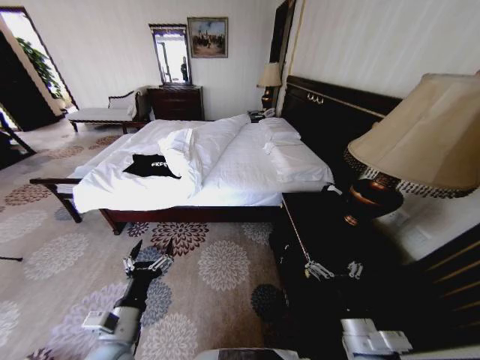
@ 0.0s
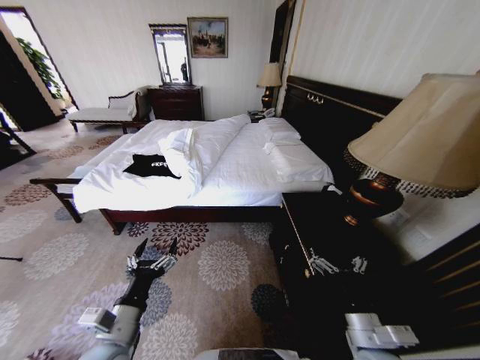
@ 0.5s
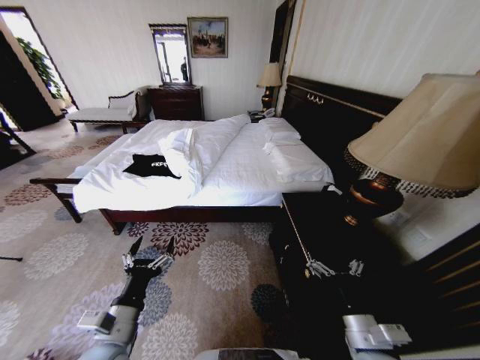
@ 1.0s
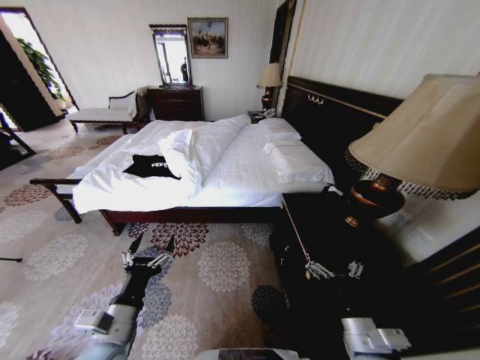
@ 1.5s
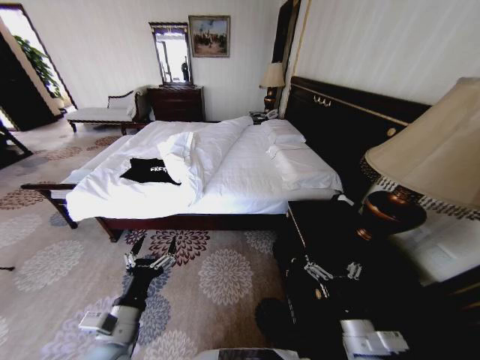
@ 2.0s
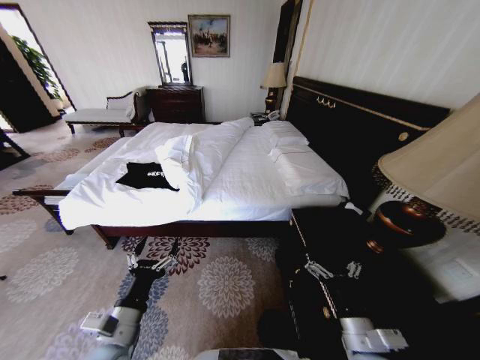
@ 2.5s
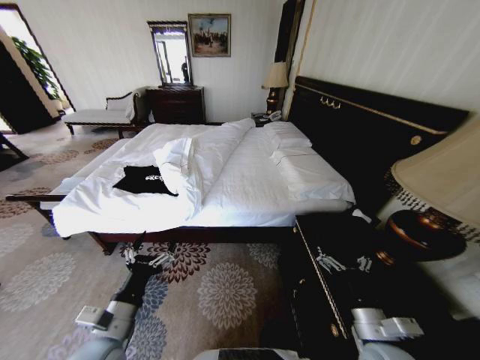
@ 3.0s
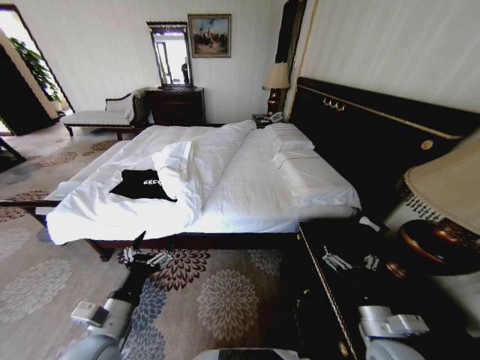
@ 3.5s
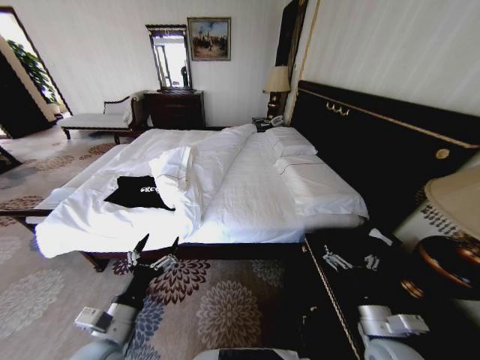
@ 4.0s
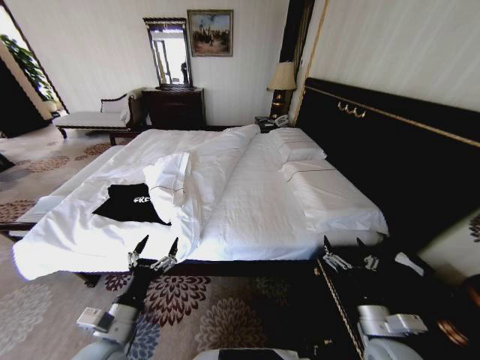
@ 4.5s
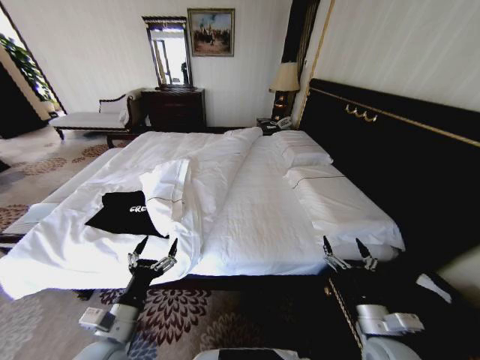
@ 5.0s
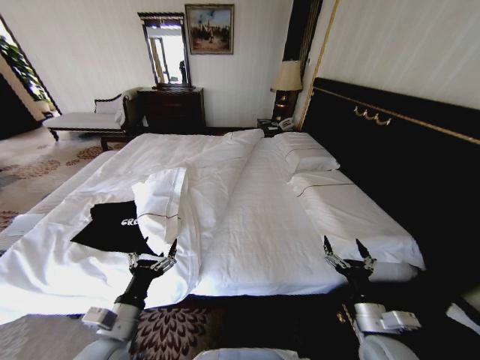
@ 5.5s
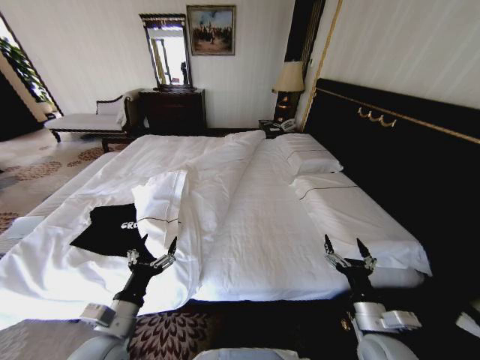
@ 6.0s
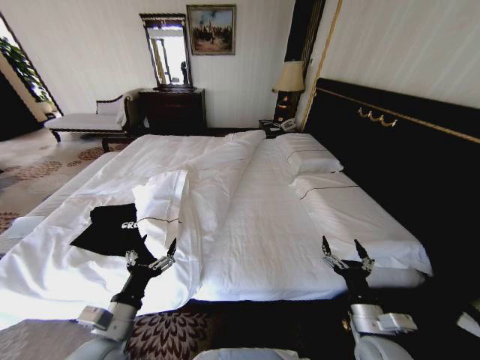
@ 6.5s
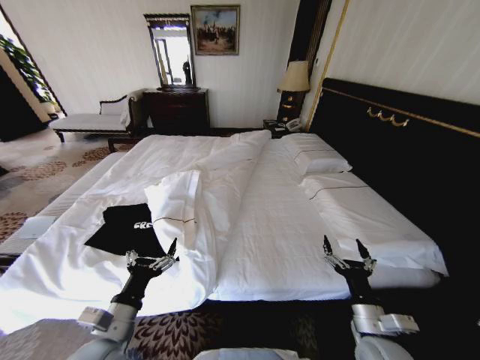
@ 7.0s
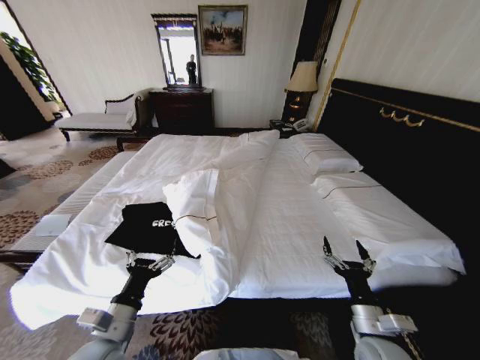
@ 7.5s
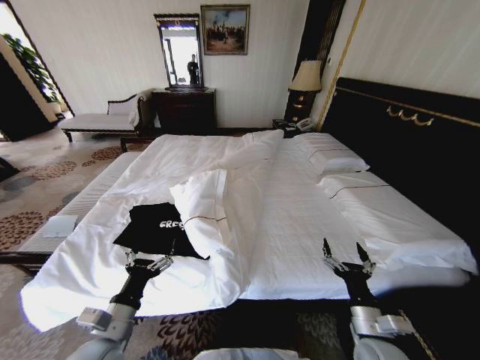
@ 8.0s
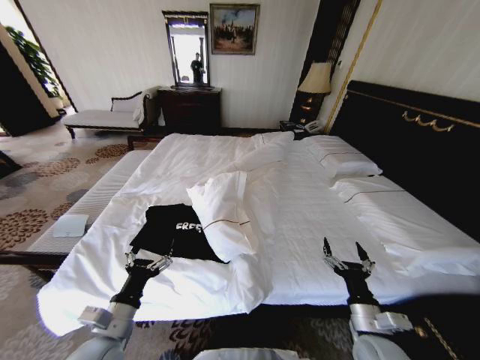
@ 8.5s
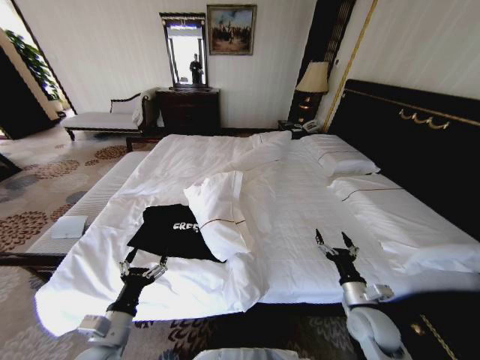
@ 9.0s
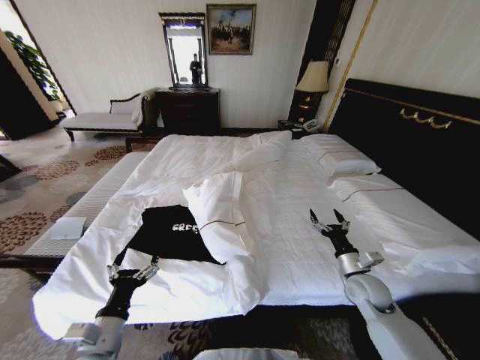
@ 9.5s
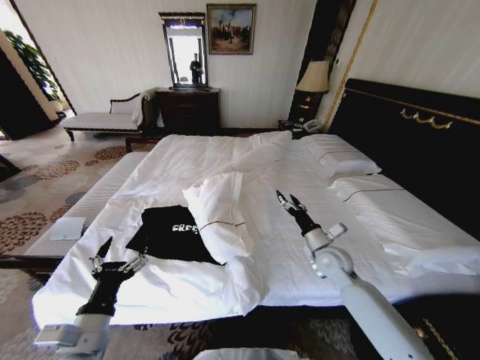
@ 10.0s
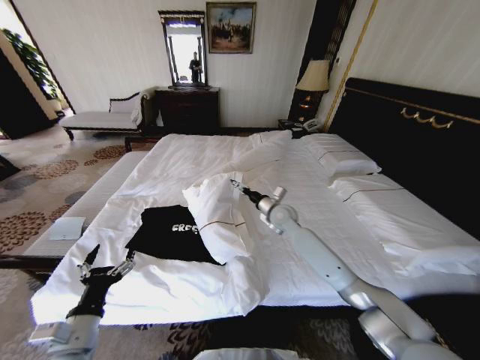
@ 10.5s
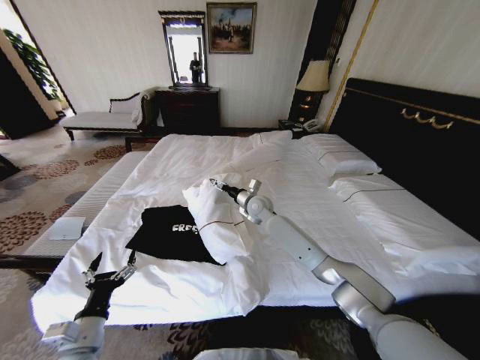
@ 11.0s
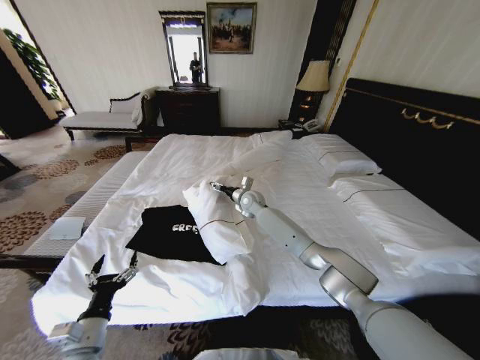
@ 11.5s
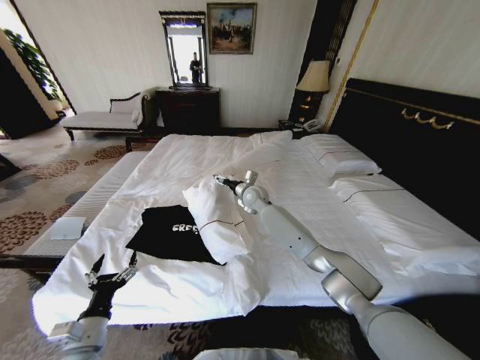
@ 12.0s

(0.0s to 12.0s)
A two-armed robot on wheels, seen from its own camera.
Task of the whole recording: Fold the clothes on the bed.
2.0s - 4.0s: The right gripper travels to the right by approximately 5 cm.
8.0s - 10.0s: The right gripper moves forward, some 20 cm.
10.0s - 12.0s: The right gripper moves forward and to the left, approximately 30 cm; the left gripper moves downward, some 5 cm.

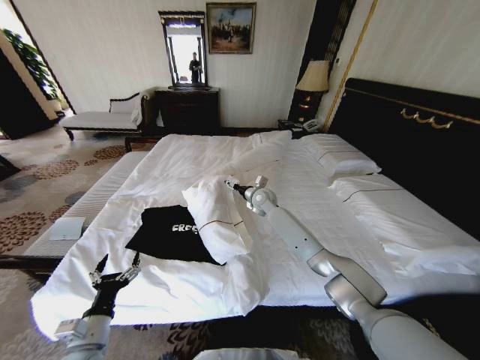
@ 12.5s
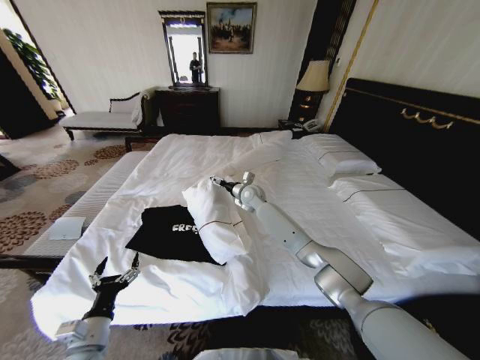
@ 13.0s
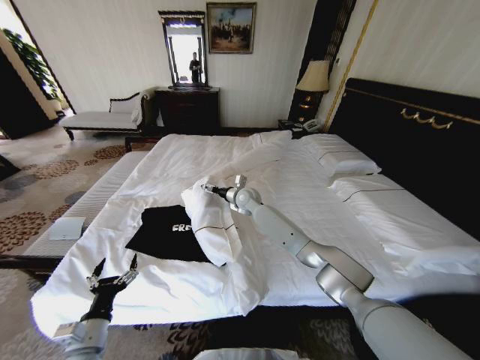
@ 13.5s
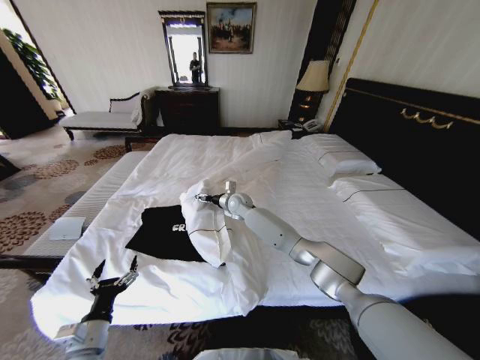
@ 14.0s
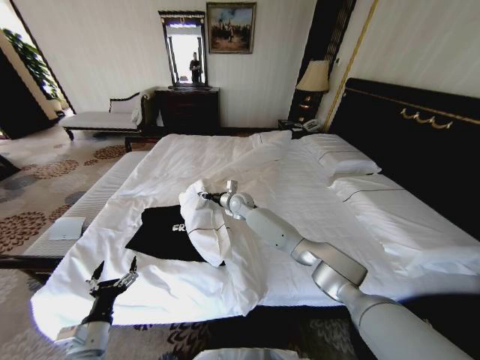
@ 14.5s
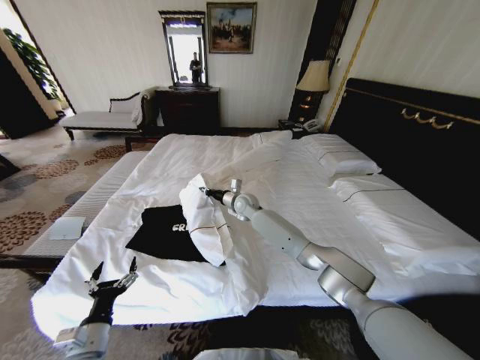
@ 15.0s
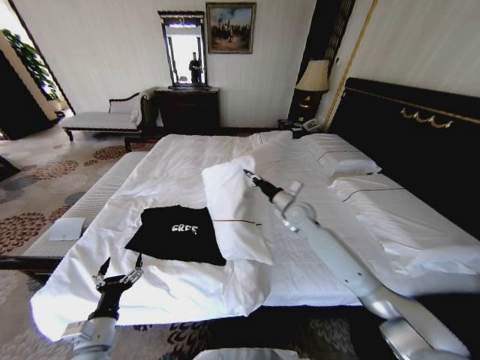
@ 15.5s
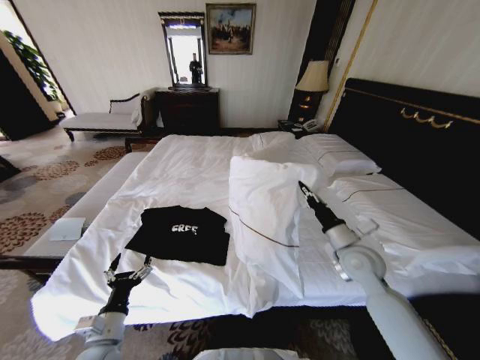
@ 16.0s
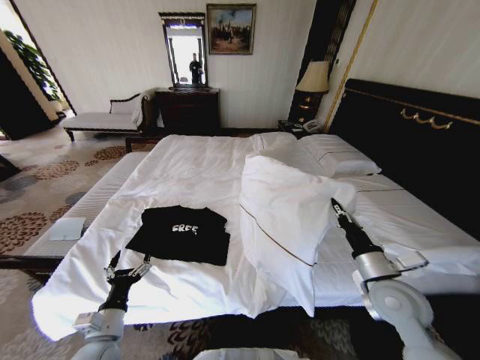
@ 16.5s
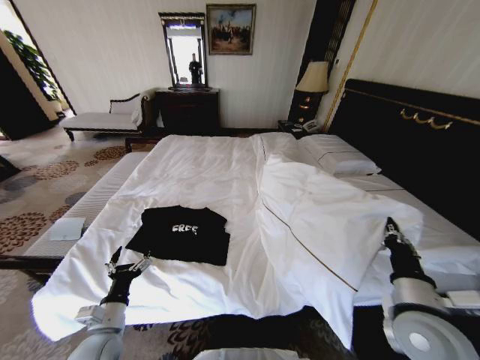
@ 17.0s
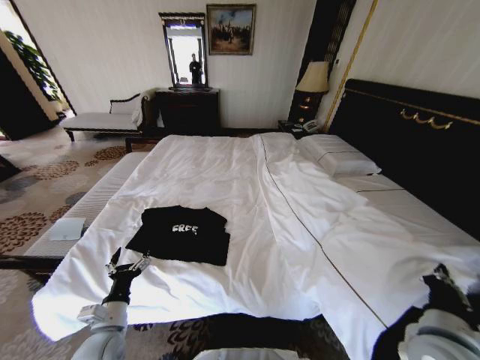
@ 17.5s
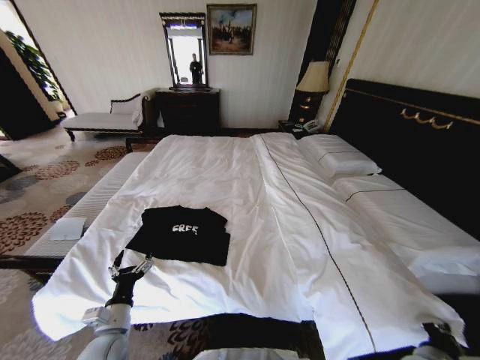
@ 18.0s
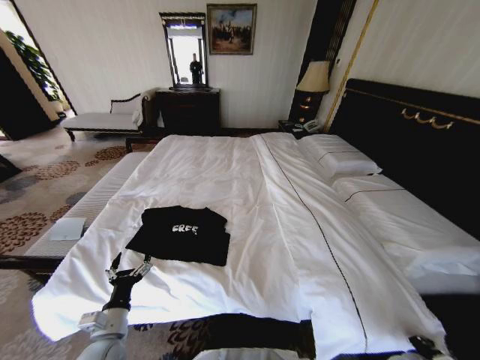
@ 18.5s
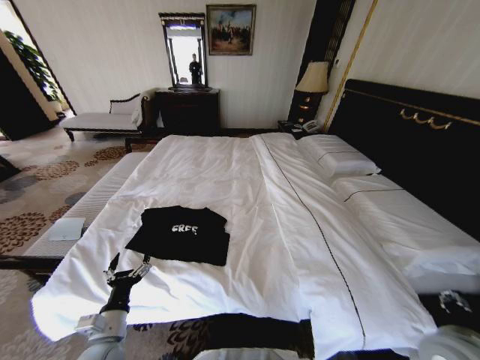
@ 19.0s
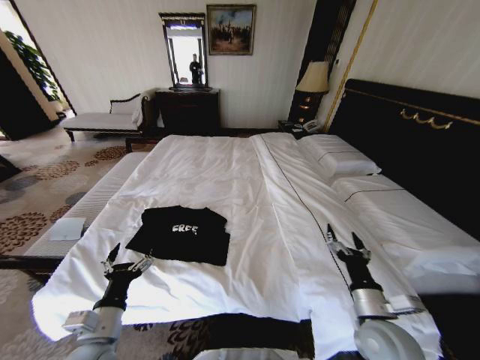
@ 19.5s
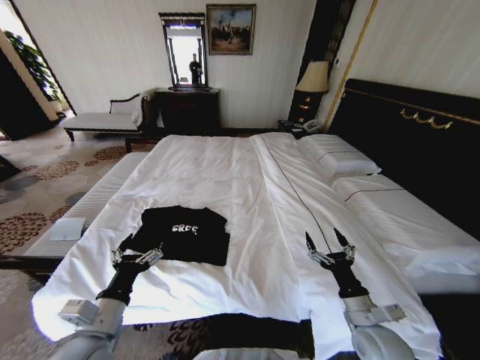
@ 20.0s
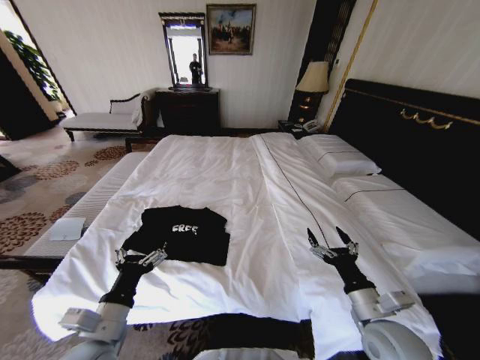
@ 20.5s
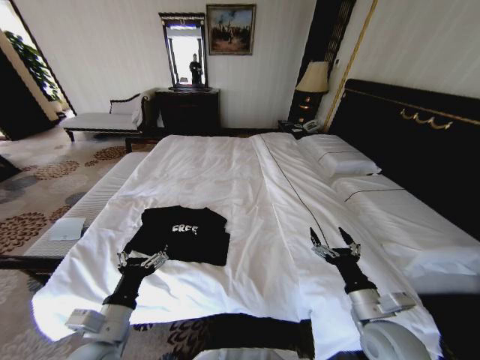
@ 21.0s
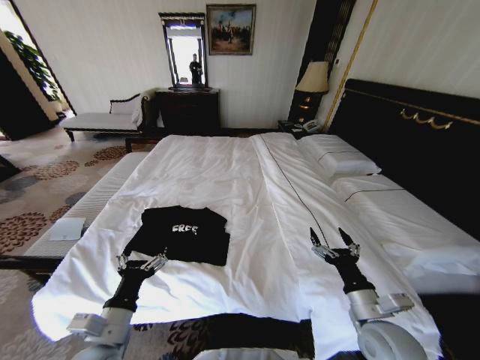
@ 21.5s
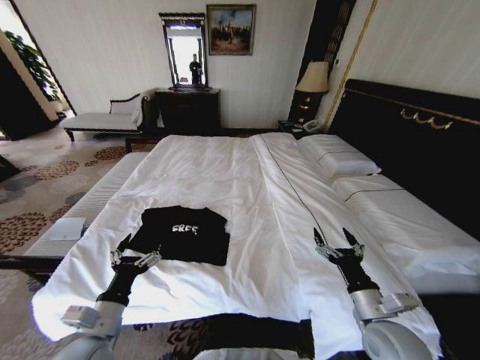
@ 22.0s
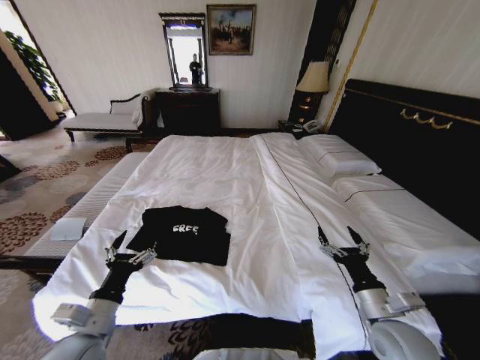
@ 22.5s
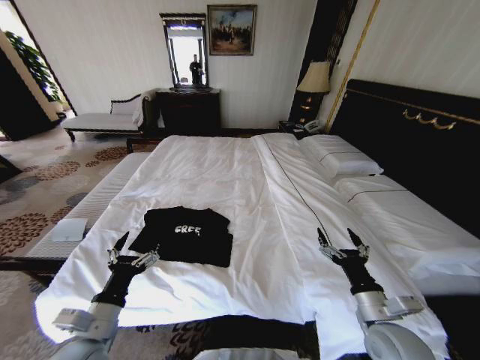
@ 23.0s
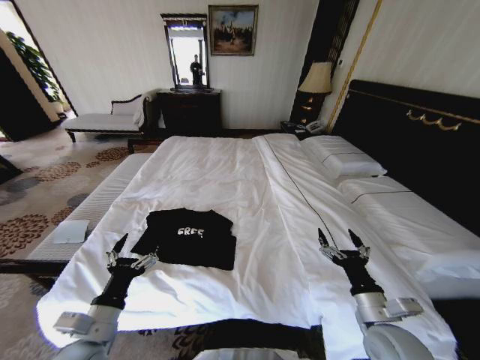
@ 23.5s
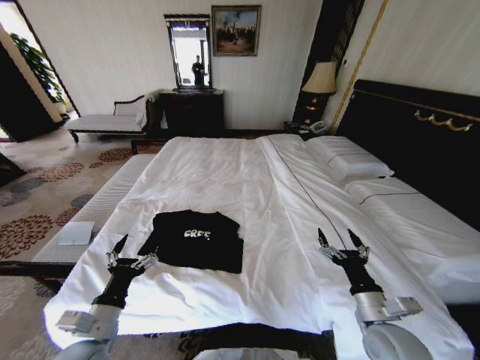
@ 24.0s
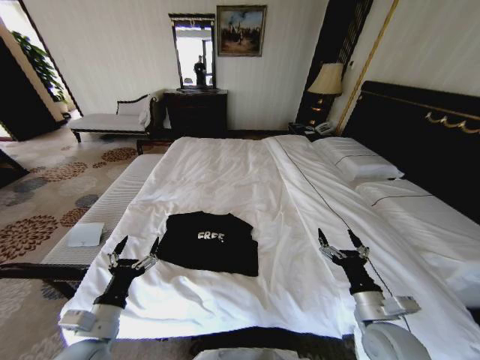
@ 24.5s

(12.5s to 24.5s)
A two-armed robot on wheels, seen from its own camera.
Task of the whole recording: Fold the clothes on the bed.
12.5s - 14.5s: The right gripper heads to the left, covering some 10 cm, and closes up.
14.5s - 16.5s: The right gripper travels backward and to the right by about 50 cm, and closes.
16.5s - 18.5s: The right gripper travels downward, backward and to the right by some 25 cm.
18.5s - 20.5s: The right gripper swings up and down, about 20 cm each way, with 2 reversals, and opens. Meanwhile the left gripper travels upward by about 10 cm.
20.5s - 22.5s: The grippers stay close to where they were, moving slightly.

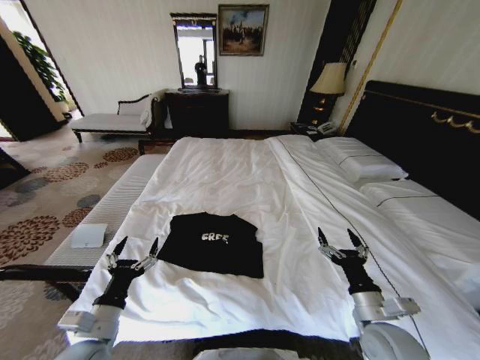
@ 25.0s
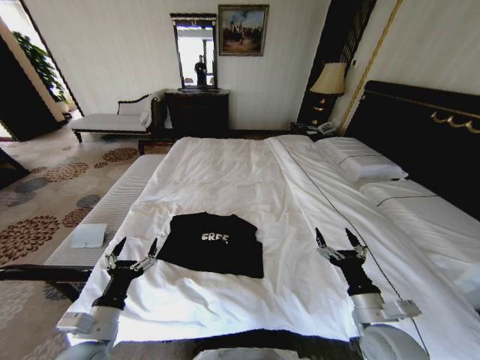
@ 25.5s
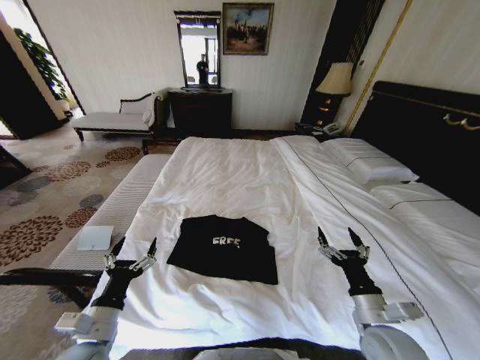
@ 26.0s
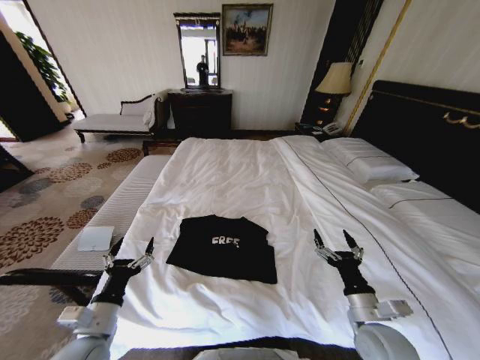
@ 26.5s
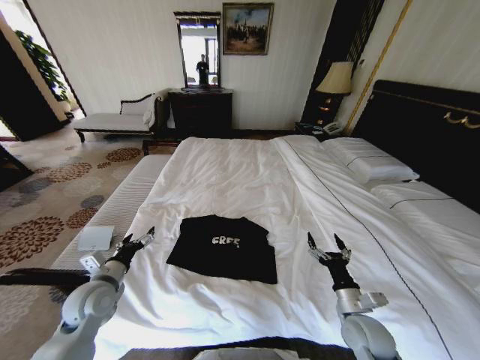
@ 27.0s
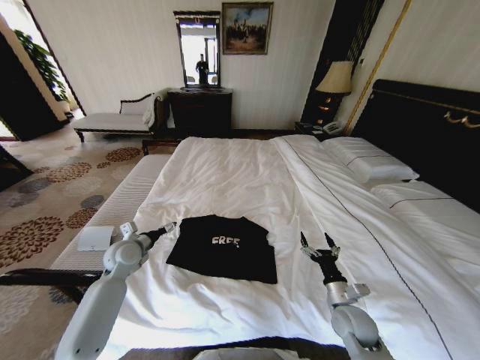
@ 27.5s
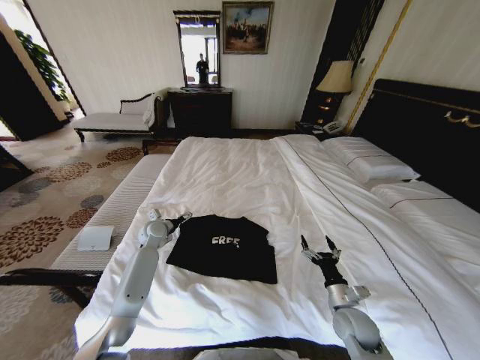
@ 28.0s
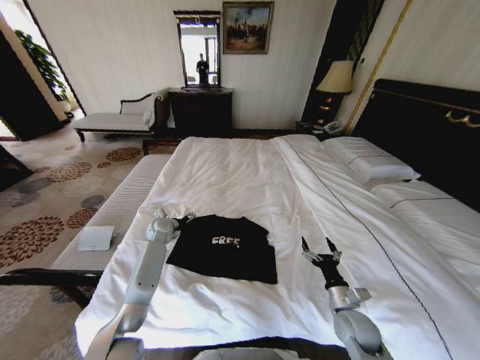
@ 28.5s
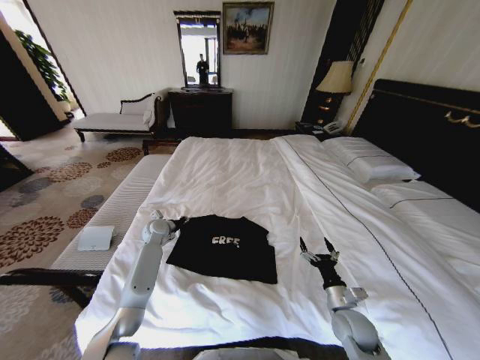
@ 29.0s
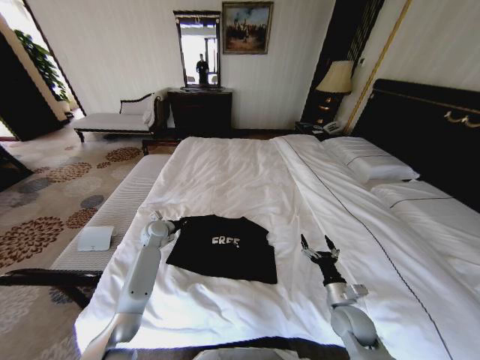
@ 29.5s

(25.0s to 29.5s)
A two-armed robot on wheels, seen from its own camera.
Task of the whole recording: Fold the clothes on the bed.
25.0s - 27.0s: The left gripper is displaced forward by about 10 cm. The right gripper goes some 5 cm downward.
27.0s - 29.5s: The left gripper goes some 25 cm forward, and closes its fingers; the right gripper moves about 5 cm.
